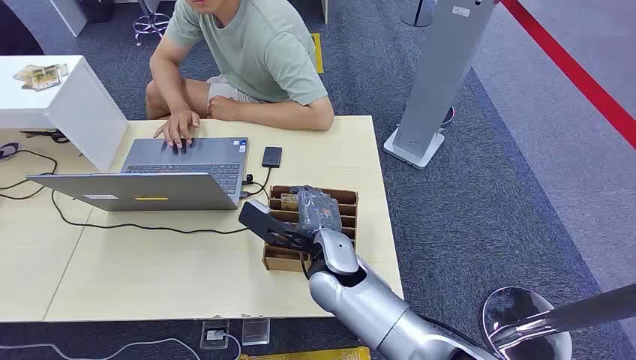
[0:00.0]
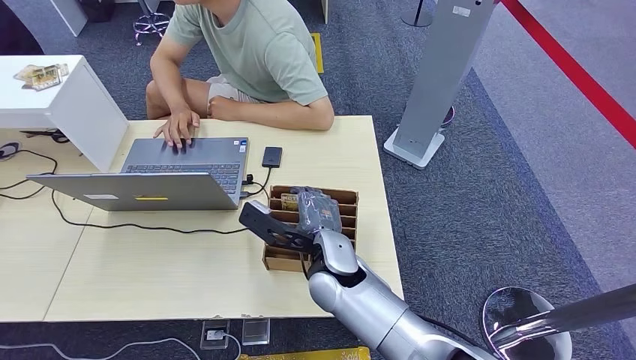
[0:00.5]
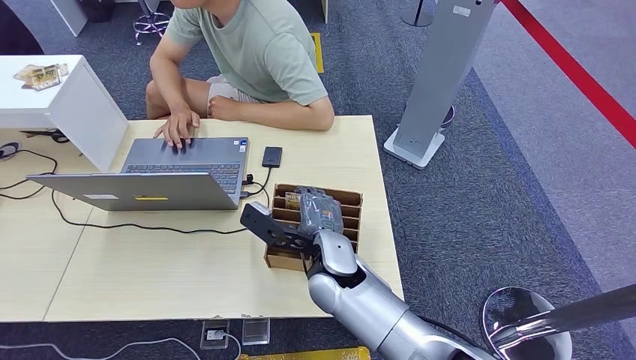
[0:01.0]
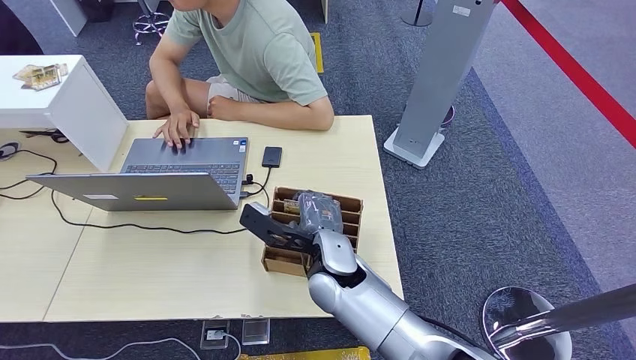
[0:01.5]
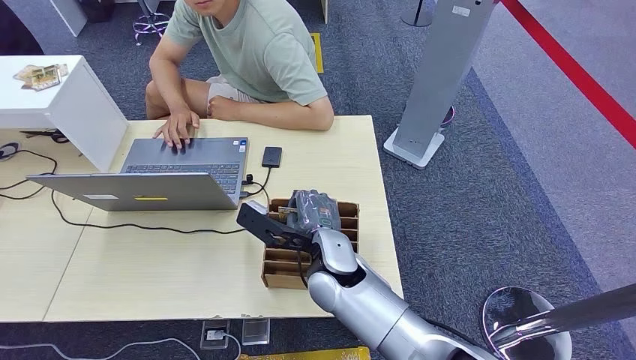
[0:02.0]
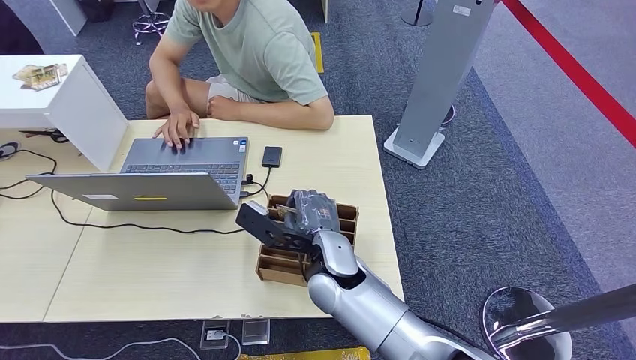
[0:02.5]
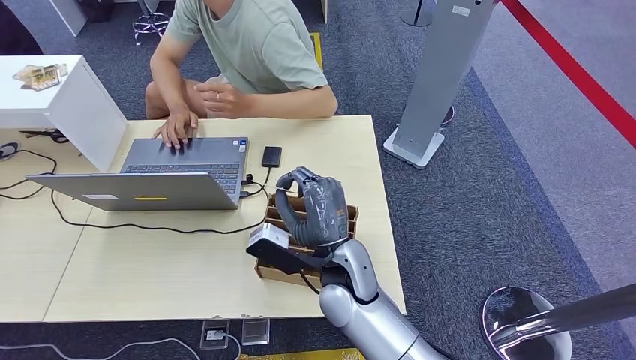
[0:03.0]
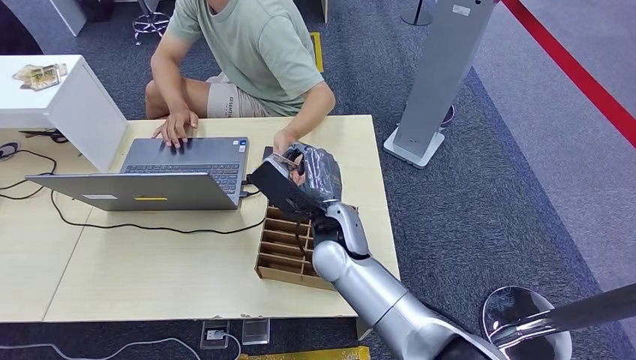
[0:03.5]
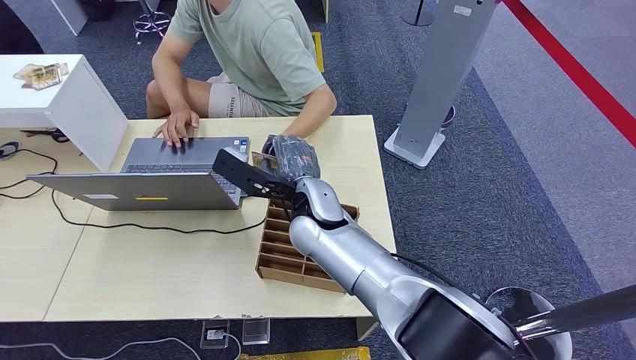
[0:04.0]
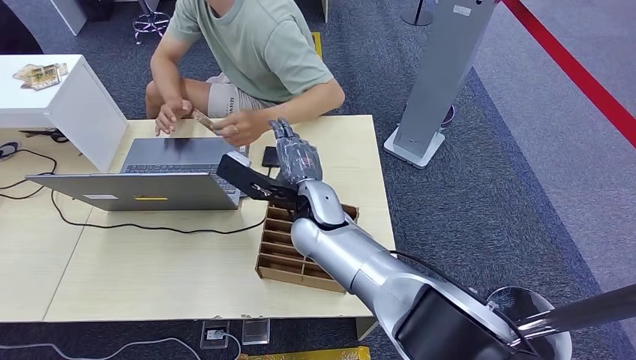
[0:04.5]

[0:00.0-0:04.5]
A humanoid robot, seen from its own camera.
Task of the whole recording: Pick up the card and hand it over to the target person.
Step, 0:00.0 to 0:02.5: Pick up the key card from the card box.
Step, 0:04.0 to 0:04.5: Hand the key card to the target.
0:02.0 to 0:04.5: The right hand heads forward and upward, covering approximately 15 cm.
